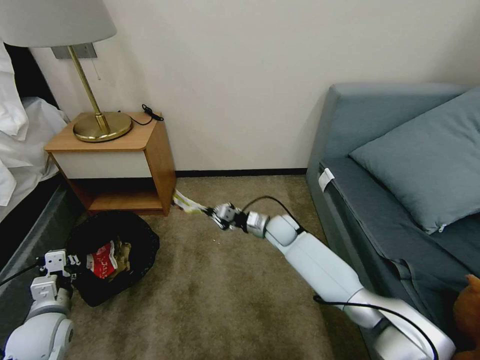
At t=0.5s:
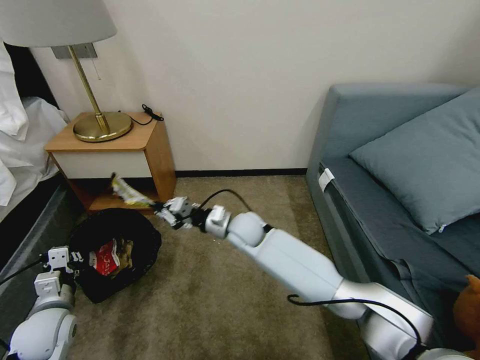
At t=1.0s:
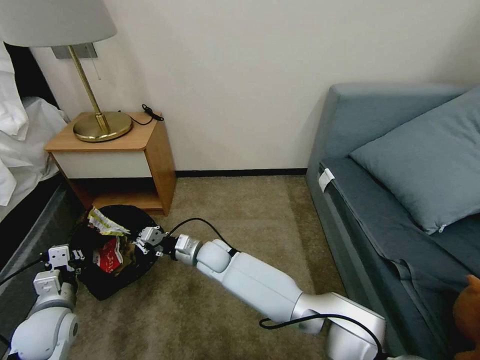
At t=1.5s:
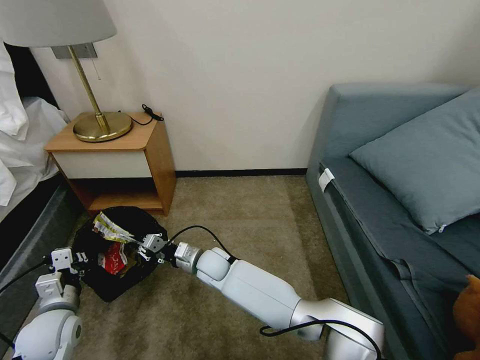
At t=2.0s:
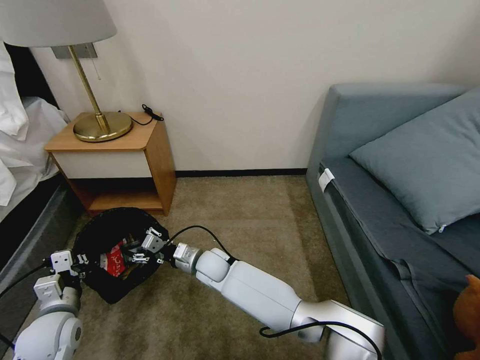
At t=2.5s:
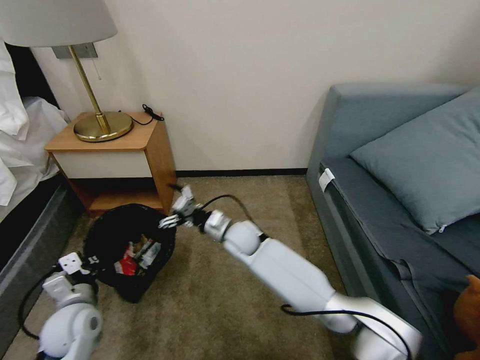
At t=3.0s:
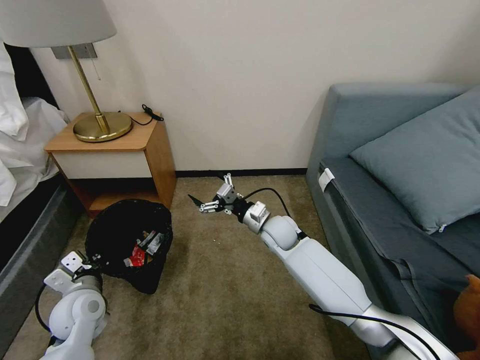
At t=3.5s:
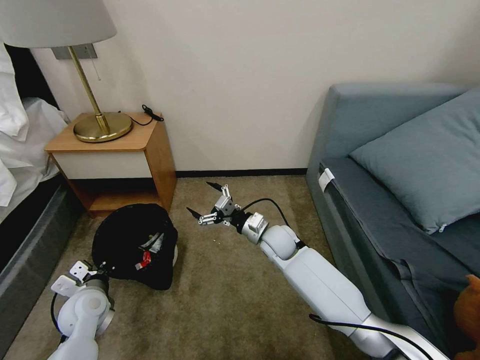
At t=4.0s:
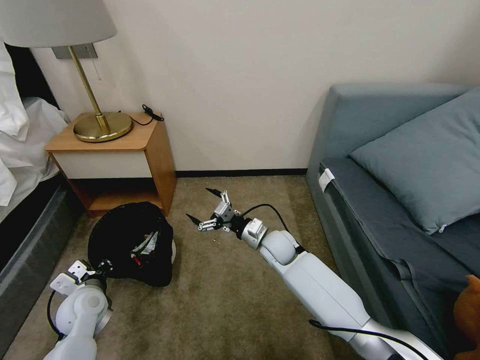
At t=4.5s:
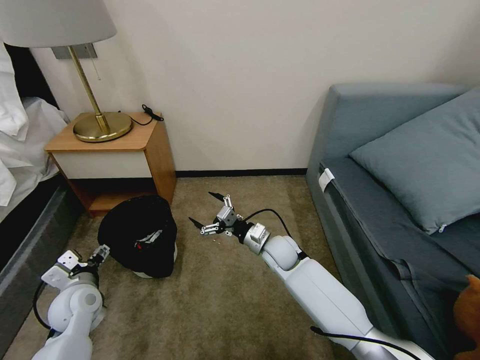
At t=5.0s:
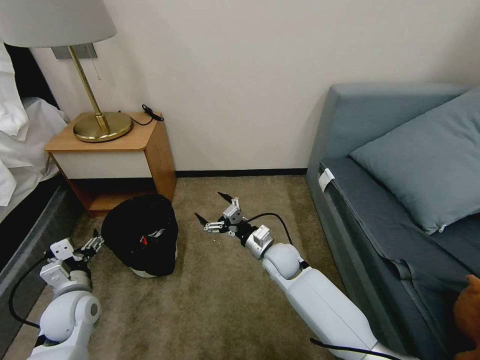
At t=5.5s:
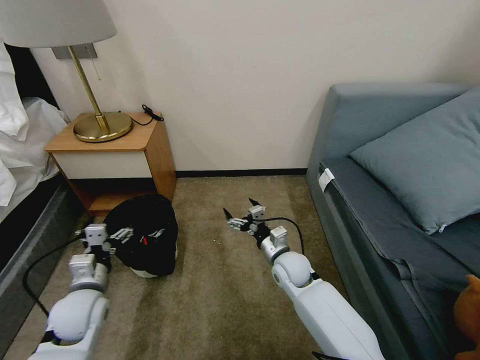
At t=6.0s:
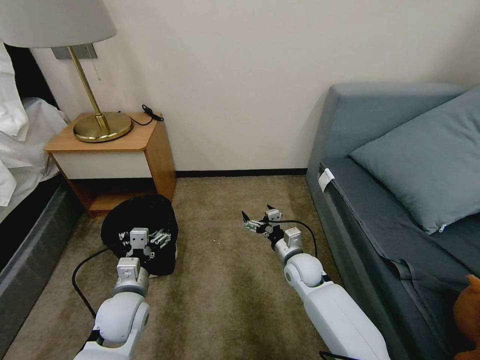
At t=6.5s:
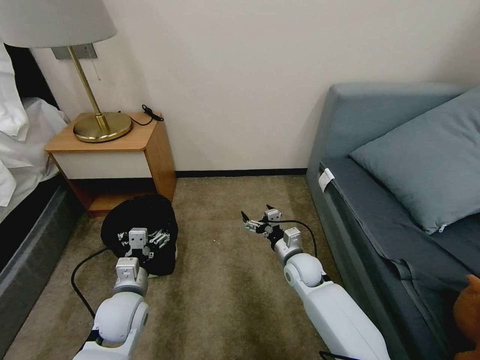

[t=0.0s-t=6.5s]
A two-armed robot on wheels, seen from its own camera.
Task of the whole recording: Pick up the trash bin, then pick up the garbage on the floor and place it into the trash bin.
t=0.0s to t=2.0s: The right gripper heads to the left and backward, covering approximately 25 cm, and opens up.
t=2.0s to t=4.5s: The left gripper shifts roughly 5 cm forward, and opens up. The right gripper moves to the right, approximately 20 cm, and opens its fingers.
t=4.5s to t=6.5s: The left gripper heads to the right, covering approximately 10 cm, while the right gripper travels to the right by approximately 5 cm.
